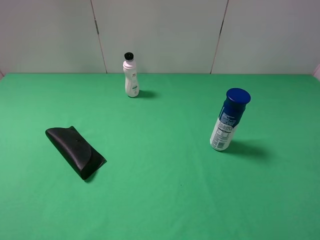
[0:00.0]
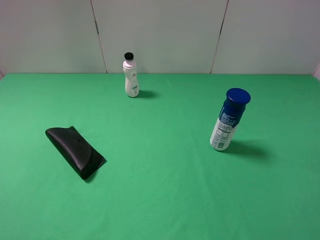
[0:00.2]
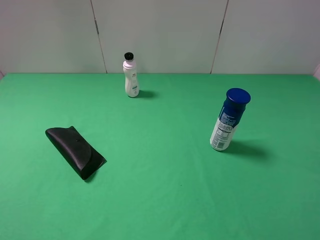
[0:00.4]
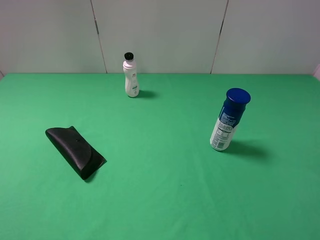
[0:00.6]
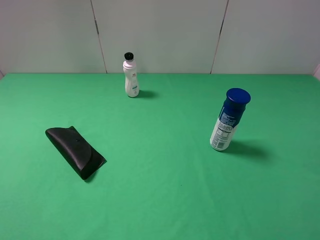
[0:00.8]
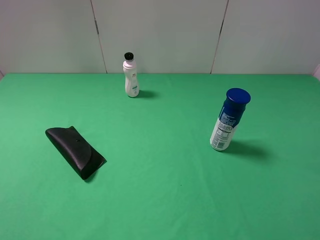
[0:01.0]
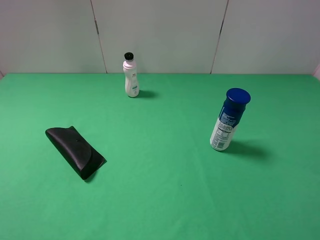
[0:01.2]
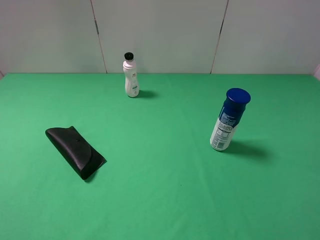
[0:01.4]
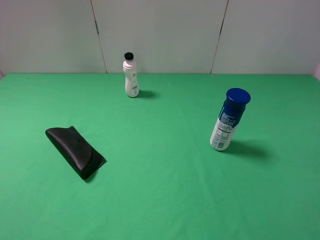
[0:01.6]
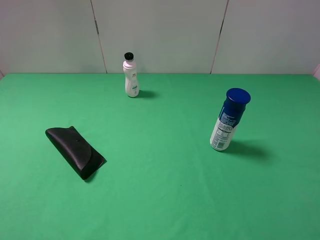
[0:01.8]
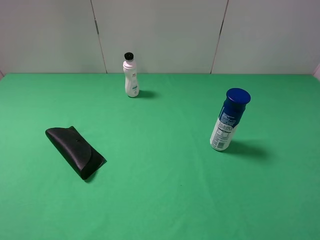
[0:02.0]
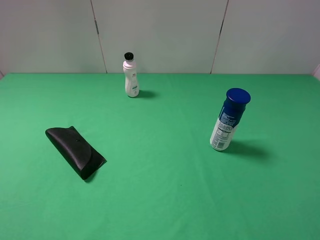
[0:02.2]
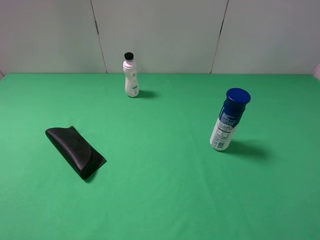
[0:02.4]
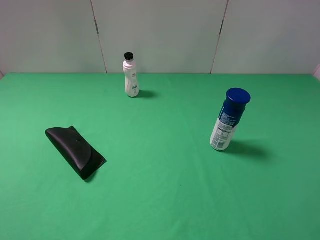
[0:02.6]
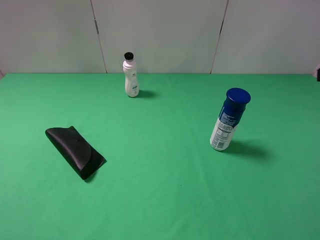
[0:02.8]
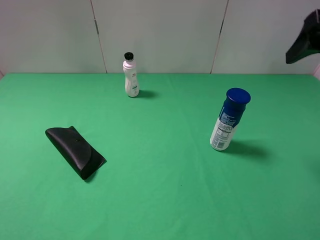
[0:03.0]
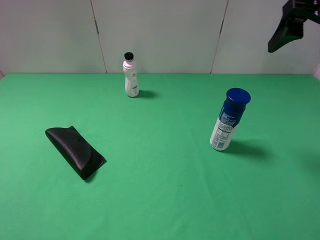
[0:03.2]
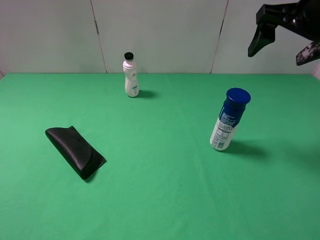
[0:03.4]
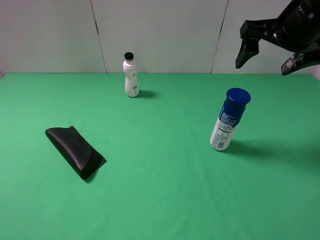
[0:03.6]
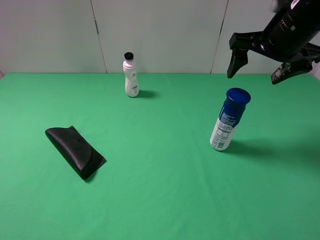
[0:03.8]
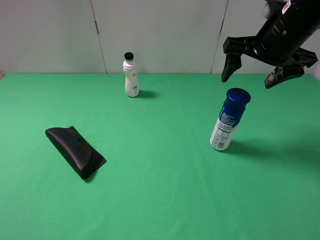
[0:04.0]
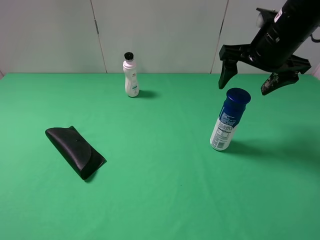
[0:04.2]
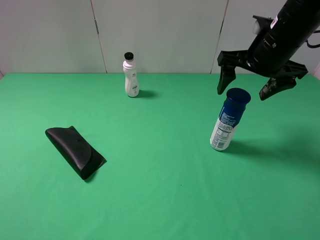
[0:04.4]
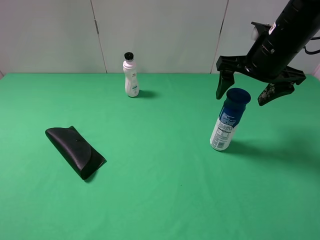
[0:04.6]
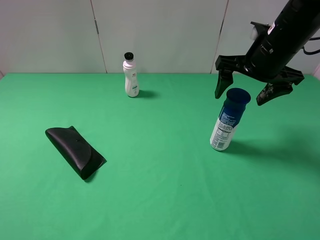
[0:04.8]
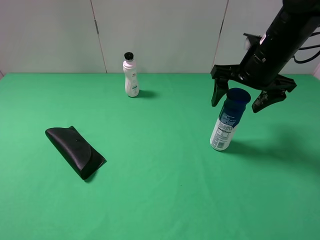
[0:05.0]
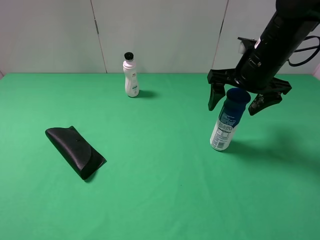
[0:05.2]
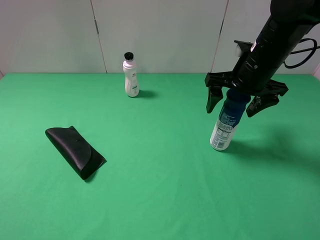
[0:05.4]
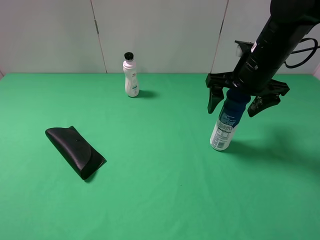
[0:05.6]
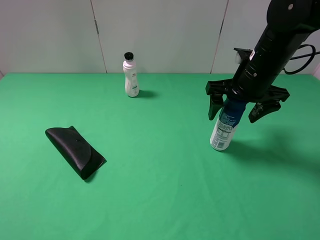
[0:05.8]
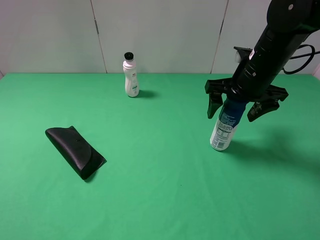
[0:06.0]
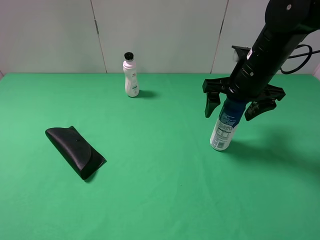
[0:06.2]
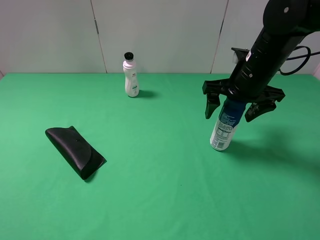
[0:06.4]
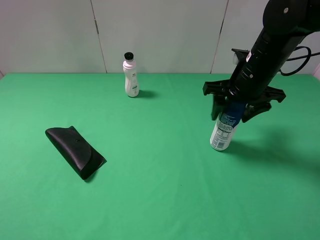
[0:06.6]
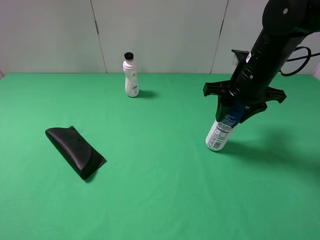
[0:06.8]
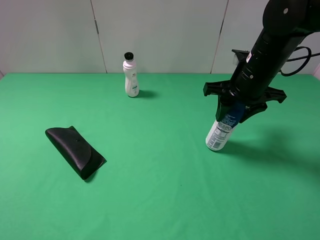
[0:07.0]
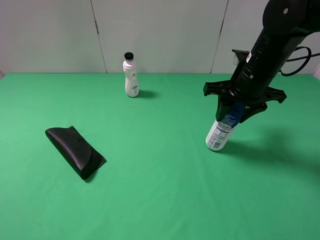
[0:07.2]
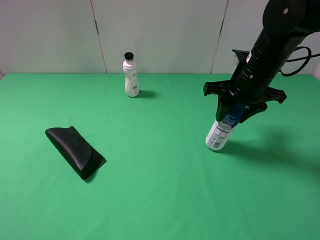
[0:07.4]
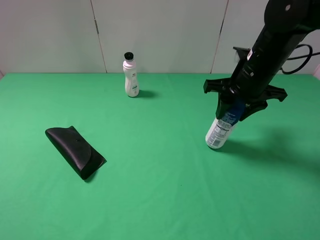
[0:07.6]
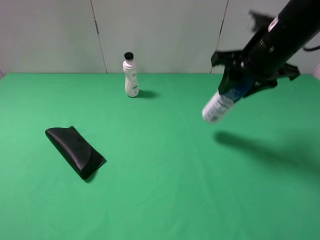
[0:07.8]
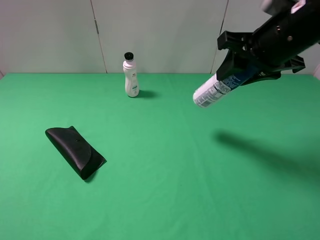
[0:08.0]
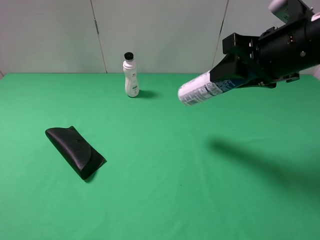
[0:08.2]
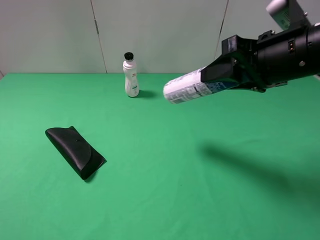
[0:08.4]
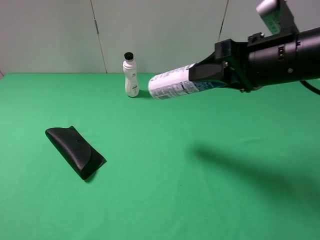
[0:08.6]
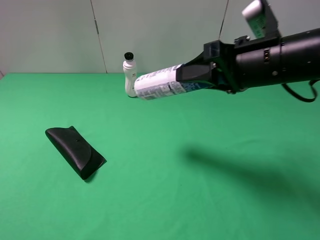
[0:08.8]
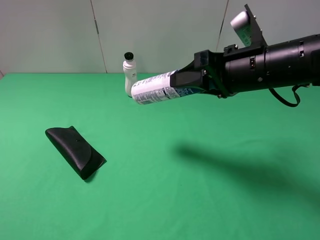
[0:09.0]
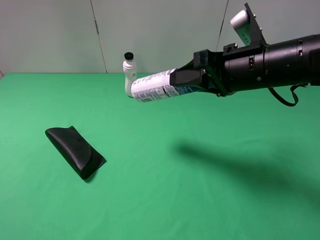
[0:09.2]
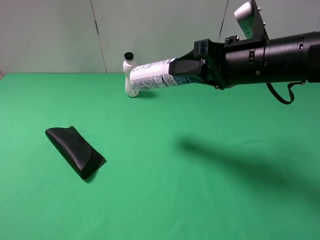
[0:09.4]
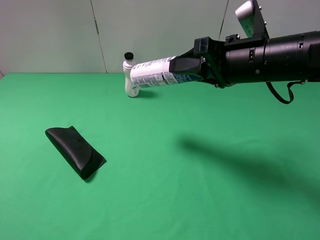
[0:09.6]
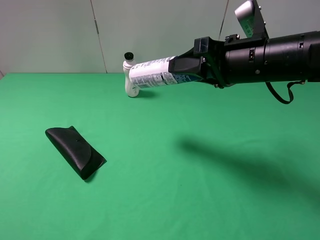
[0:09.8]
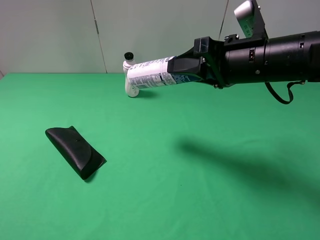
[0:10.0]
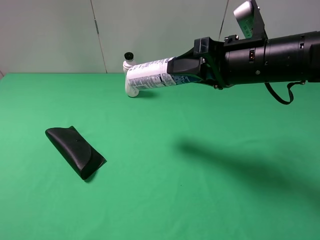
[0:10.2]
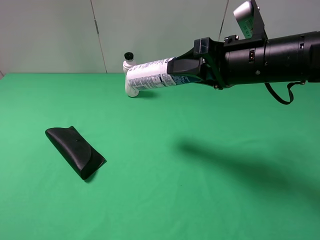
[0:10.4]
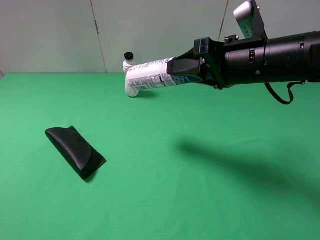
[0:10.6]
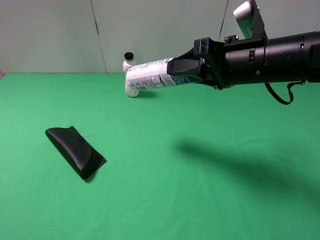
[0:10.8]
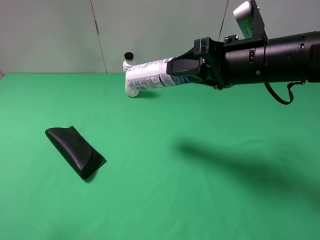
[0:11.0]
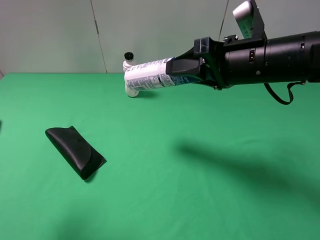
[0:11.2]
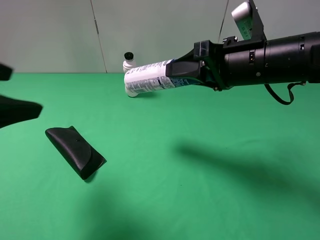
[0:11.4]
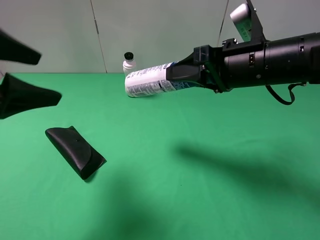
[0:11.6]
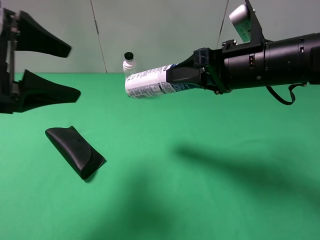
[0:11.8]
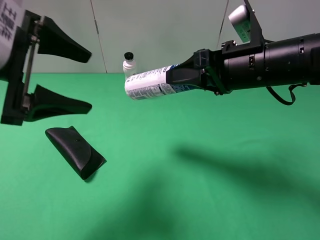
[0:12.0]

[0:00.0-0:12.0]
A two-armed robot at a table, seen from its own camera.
Task of the whole recording: use the right gripper to pick up the item and transfer it from the right gripper to the left gripper.
Step, 0:00.0 to 0:07.0: Use the right gripper to grab the milk on the right side of the table.
0:00.0 to 0:01.6: Both grippers stay about where they are.
0:01.6 to 0:03.0: The right gripper shifts some 25 cm forward.
0:03.0 to 0:04.4: The right gripper travels downward, forward and to the left by approximately 15 cm.
0:04.4 to 0:06.0: The grippers stay close to where they were, moving slightly.
0:06.0 to 0:07.6: The right gripper closes its fingers.
0:07.6 to 0:09.0: The right gripper travels backward by approximately 5 cm.
0:09.0 to 0:10.4: There are only small adjustments of the grippers.
0:10.4 to 0:12.0: The left gripper shifts some 25 cm forward and to the right.

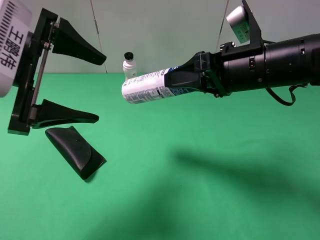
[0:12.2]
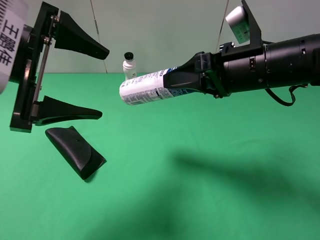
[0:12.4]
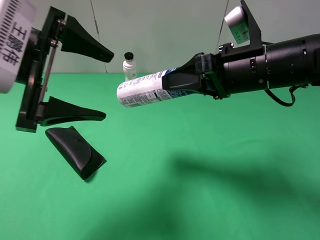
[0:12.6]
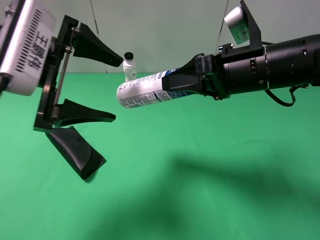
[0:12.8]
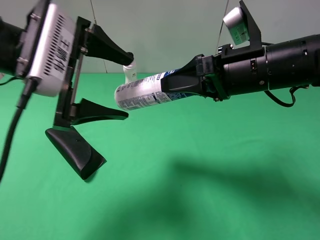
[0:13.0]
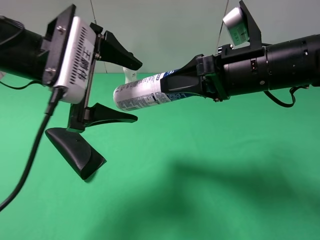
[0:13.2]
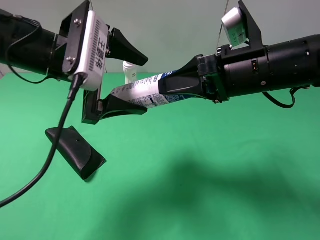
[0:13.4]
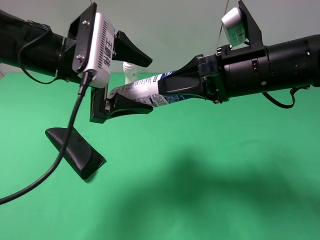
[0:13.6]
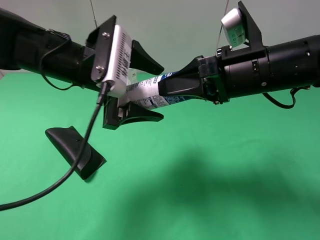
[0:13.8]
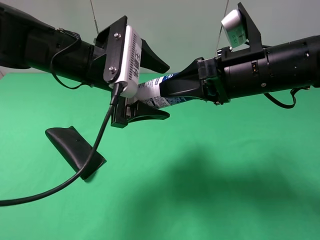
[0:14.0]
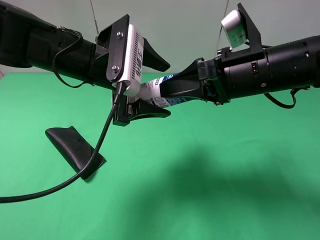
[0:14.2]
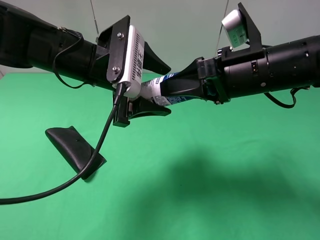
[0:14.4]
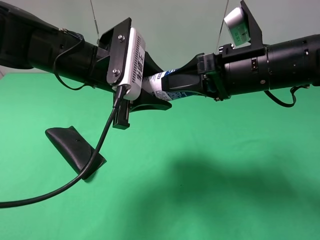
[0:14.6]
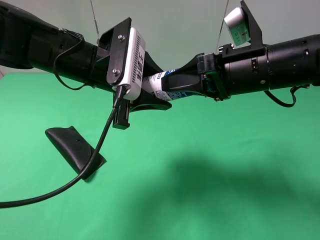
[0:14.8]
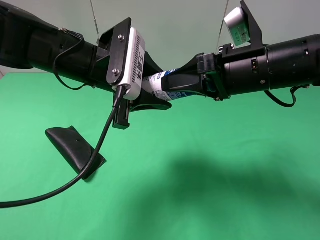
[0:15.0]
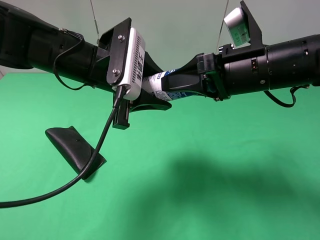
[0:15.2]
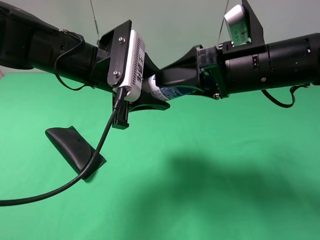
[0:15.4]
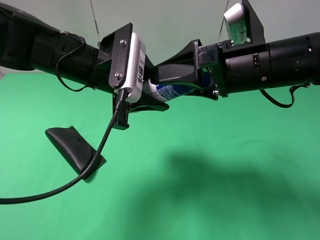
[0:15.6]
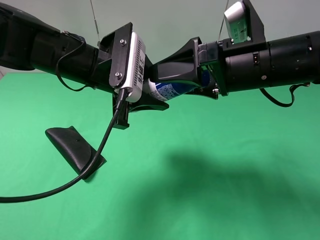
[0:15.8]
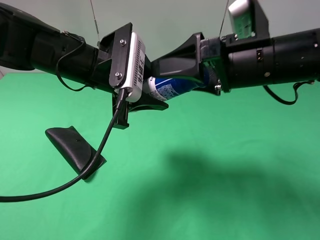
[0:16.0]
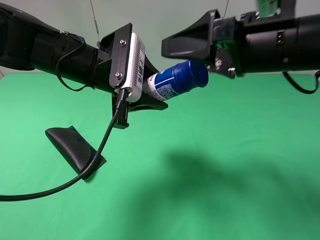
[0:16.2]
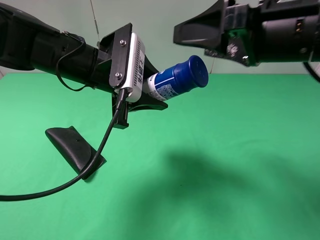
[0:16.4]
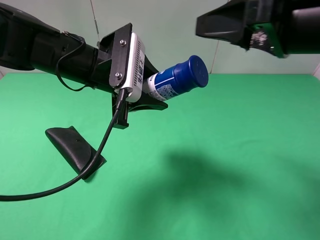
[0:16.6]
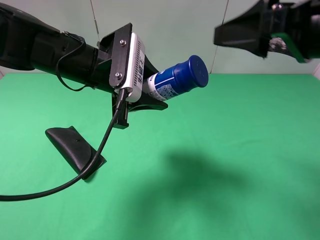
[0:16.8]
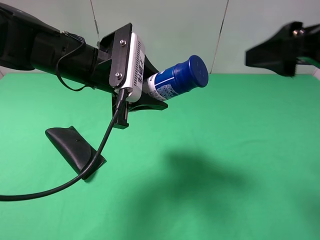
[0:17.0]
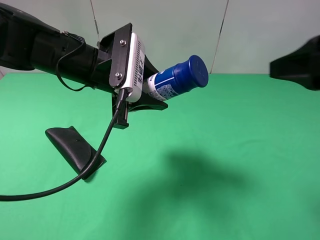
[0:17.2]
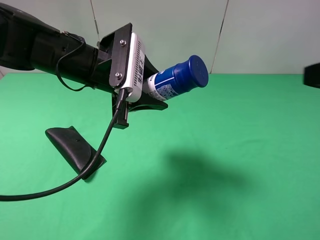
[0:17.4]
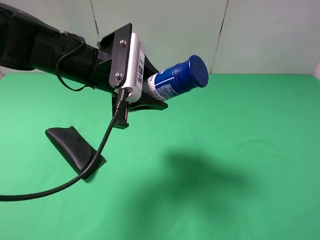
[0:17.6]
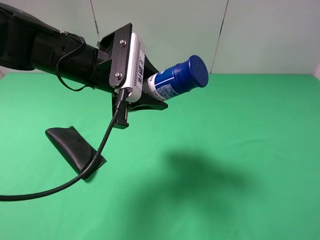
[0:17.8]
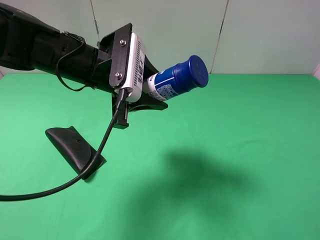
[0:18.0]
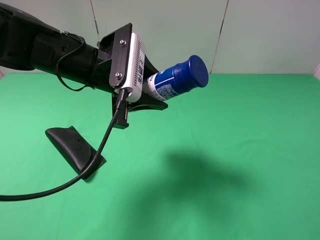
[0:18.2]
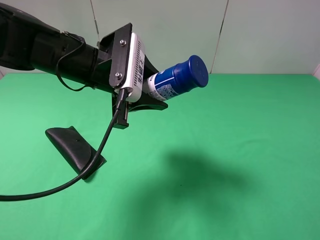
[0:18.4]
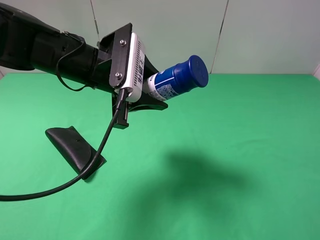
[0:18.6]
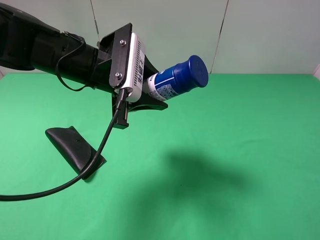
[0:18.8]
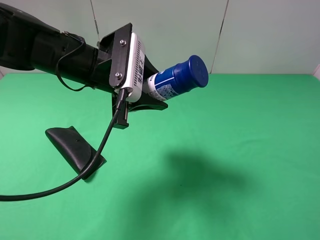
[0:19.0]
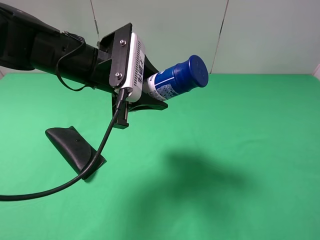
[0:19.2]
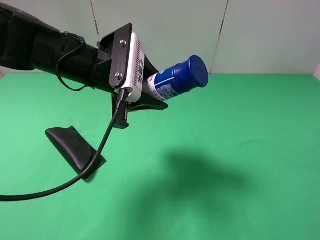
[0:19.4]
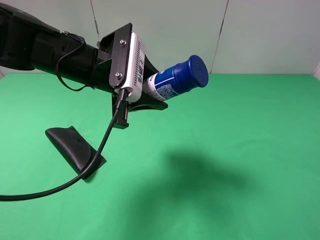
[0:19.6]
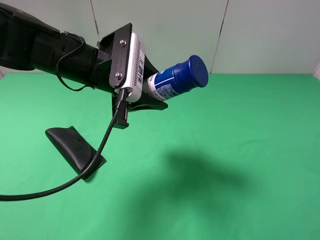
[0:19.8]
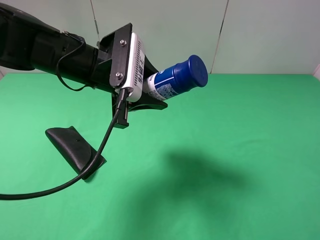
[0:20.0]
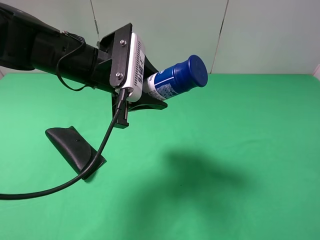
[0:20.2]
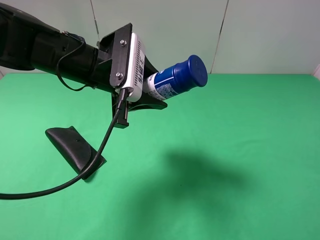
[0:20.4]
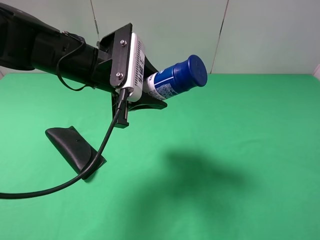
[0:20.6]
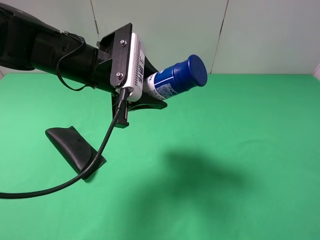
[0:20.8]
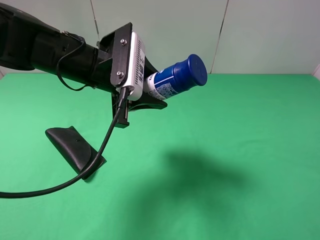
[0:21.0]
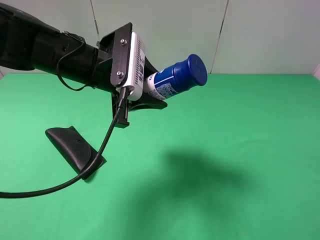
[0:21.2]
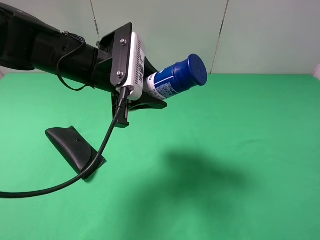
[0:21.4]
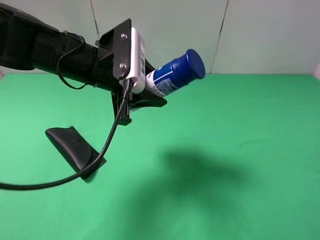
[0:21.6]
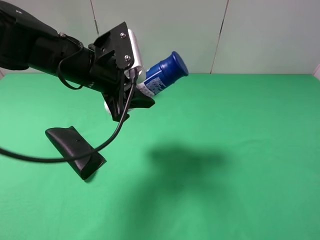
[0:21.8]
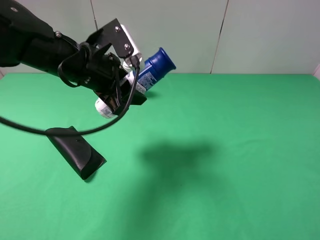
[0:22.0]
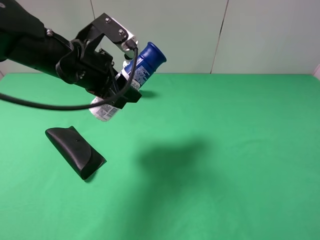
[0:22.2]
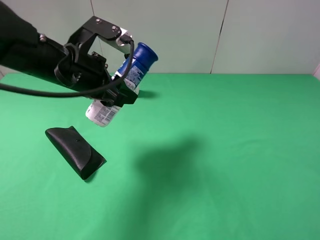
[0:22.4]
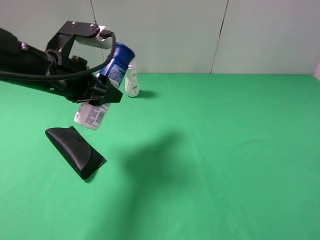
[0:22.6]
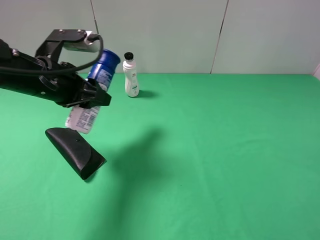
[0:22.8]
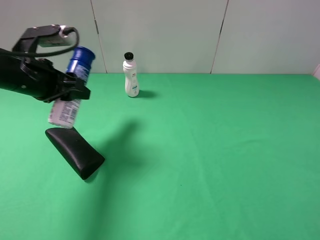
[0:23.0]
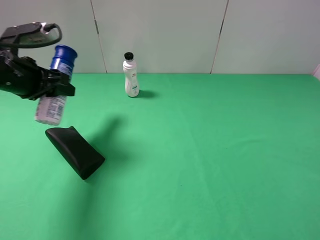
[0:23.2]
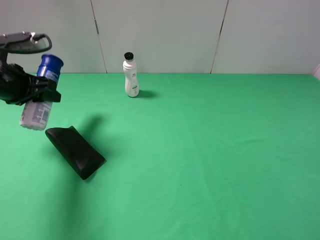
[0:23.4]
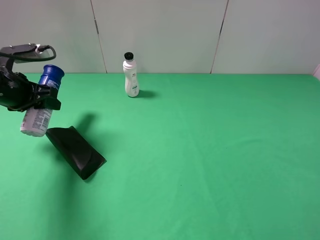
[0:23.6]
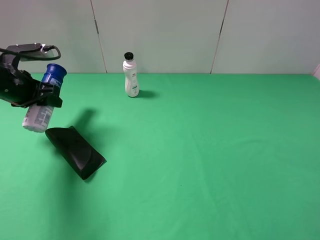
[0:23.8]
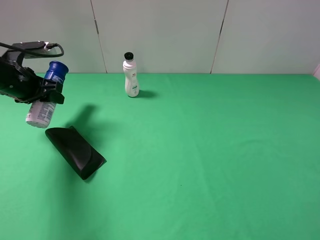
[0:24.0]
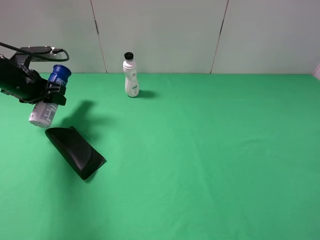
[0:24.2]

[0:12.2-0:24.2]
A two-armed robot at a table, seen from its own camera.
Task of the whole recording: use the right gripper to pick up the item and transfer it from the right gripper to the left gripper.
Step, 0:12.2 to 0:15.8: Pass the yogurt to the left gripper.
0:12.2 to 0:13.8: The left gripper goes approximately 10 cm to the right, downward and forward.
0:13.8 to 0:15.2: The left gripper closes up.
0:15.2 to 0:16.6: The right gripper goes some 10 cm upward, and opens up.
0:16.6 to 0:18.2: The right gripper is displaced backward and to the right by approximately 20 cm.
0:19.8 to 0:21.2: The grippers make only small movements.
0:21.2 to 0:22.6: The left gripper goes some 5 cm to the left.
0:22.6 to 0:24.2: The left gripper shifts roughly 20 cm to the left, forward and downward.
